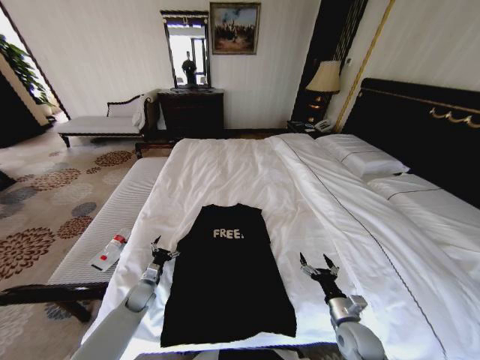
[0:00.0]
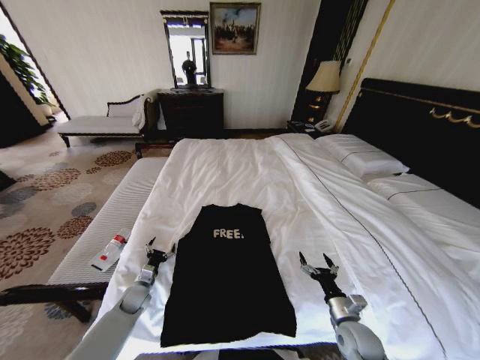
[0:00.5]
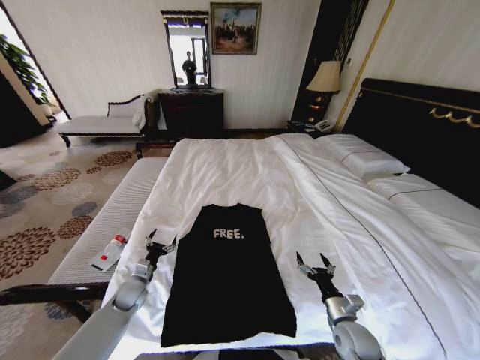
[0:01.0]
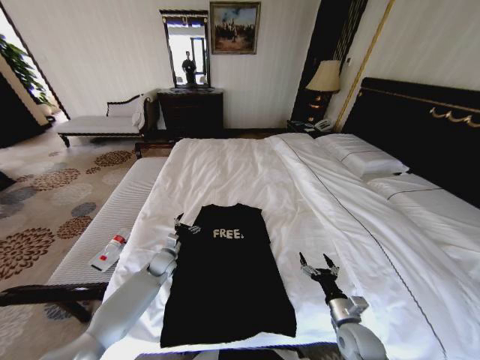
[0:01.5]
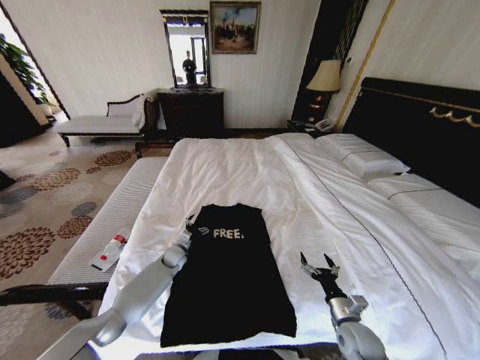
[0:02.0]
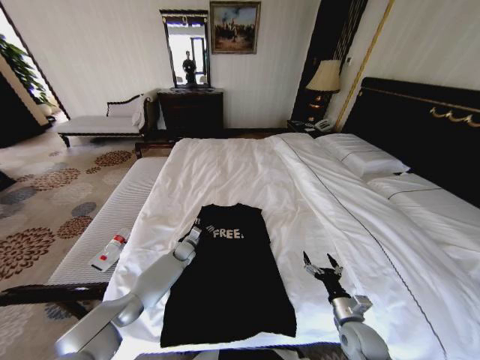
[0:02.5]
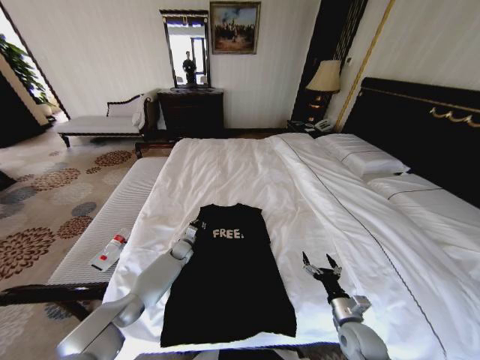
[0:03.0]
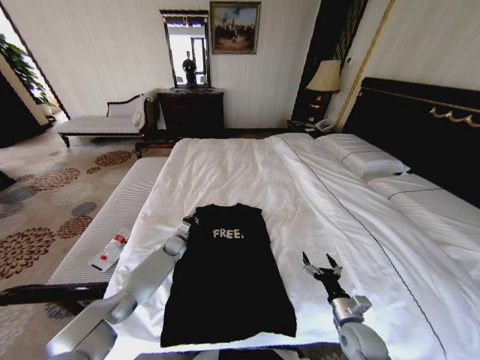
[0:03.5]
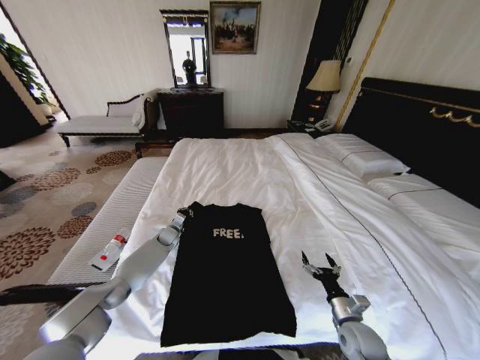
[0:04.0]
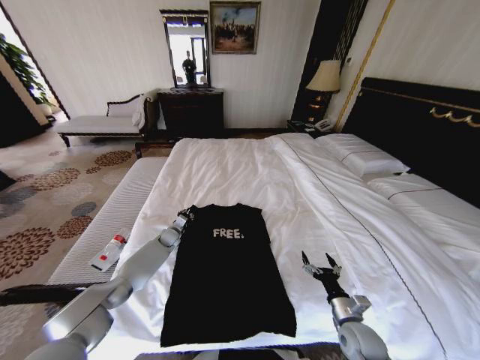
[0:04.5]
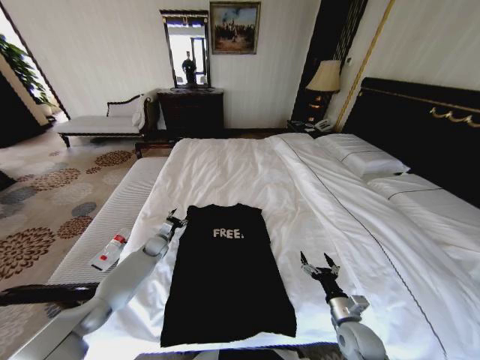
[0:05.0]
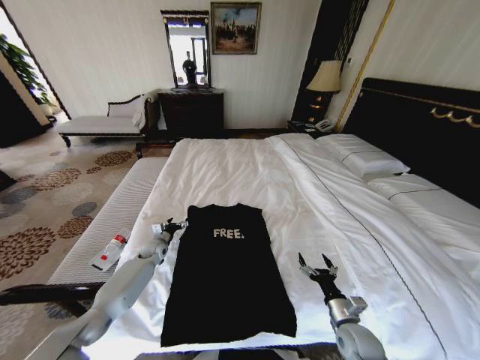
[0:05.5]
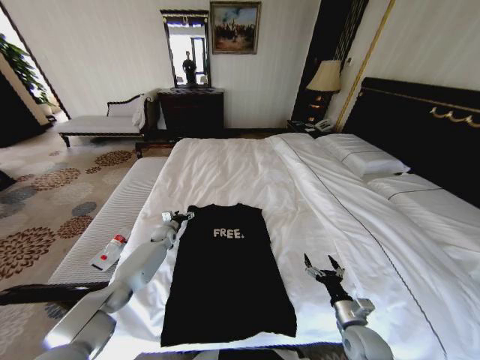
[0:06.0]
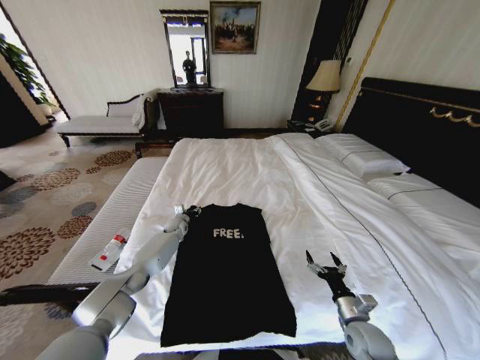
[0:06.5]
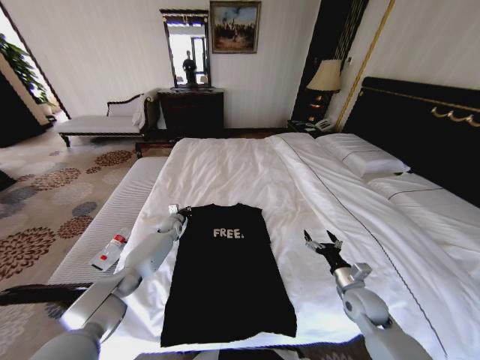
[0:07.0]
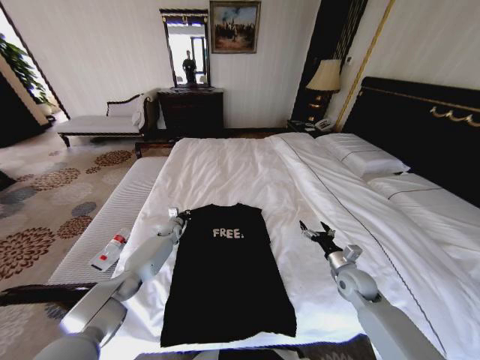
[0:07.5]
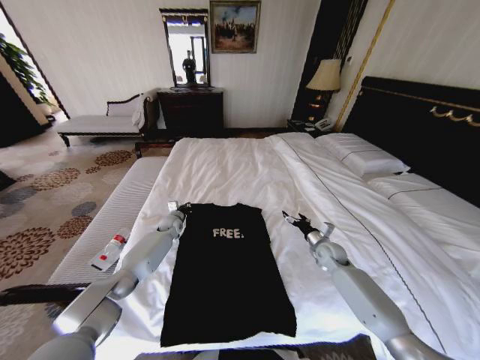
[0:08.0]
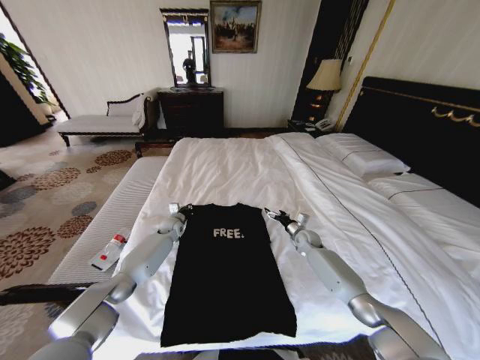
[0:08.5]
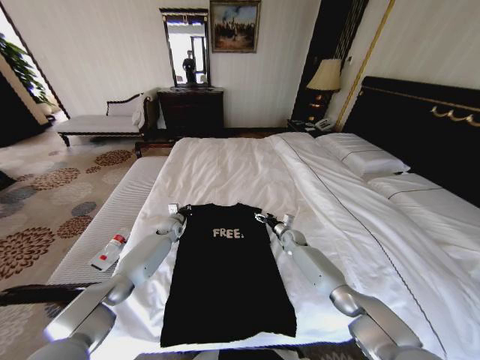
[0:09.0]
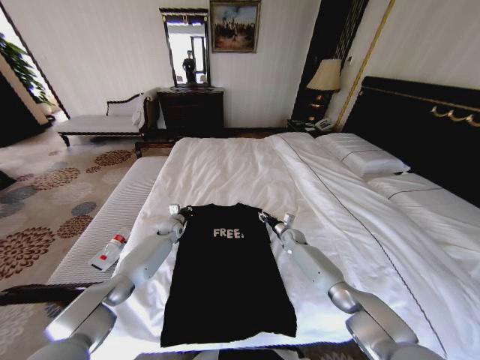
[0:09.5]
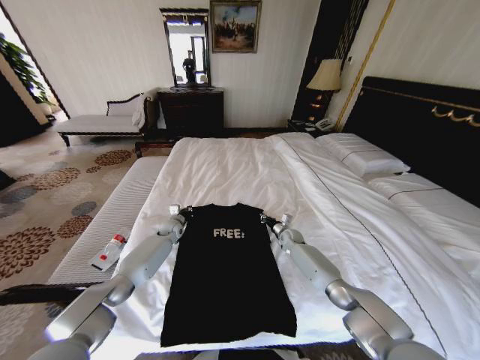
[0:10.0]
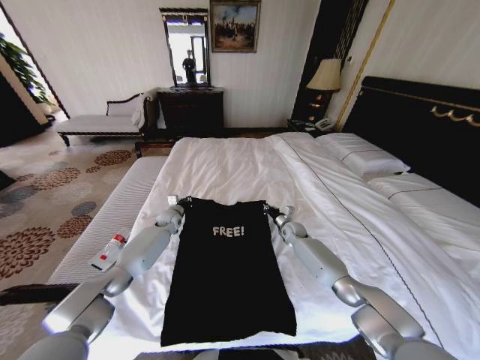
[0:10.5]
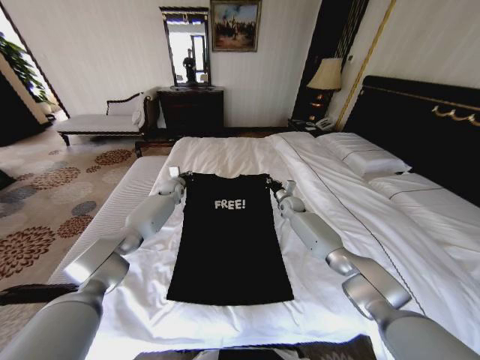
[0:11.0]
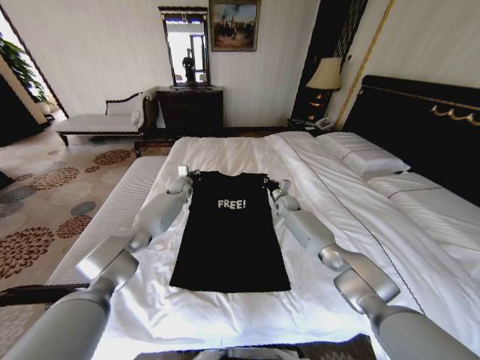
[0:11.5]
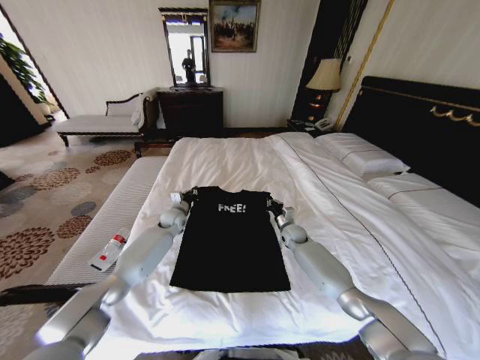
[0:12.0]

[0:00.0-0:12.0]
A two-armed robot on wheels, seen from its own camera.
Task of the whole recording: Fold the clothes on the bed.
0:00.0 to 0:02.0: The left gripper goes some 15 cm forward and to the right.
0:02.0 to 0:04.0: The left gripper moves forward, approximately 10 cm, and closes.
0:04.0 to 0:06.0: The left gripper opens its fingers.
0:06.0 to 0:08.0: The right gripper travels forward by some 25 cm. The left gripper moves about 5 cm, and closes.
0:08.0 to 0:10.0: The right gripper is displaced forward, to the left and downward by about 15 cm, and closes its fingers.
0:10.0 to 0:12.0: The grippers both shift upward by roughly 5 cm.

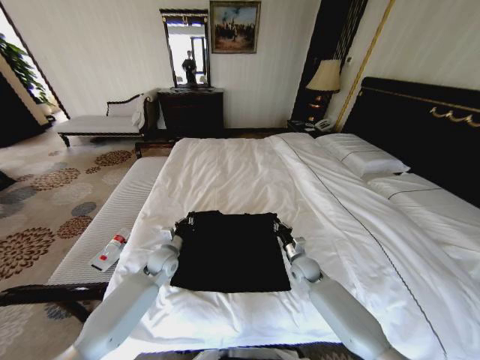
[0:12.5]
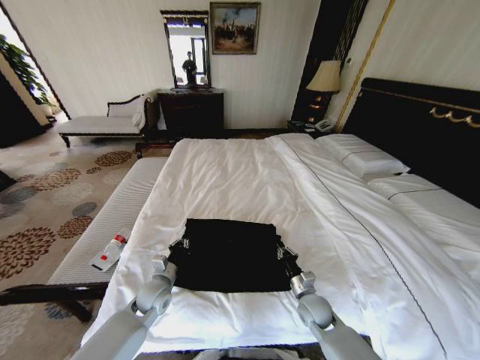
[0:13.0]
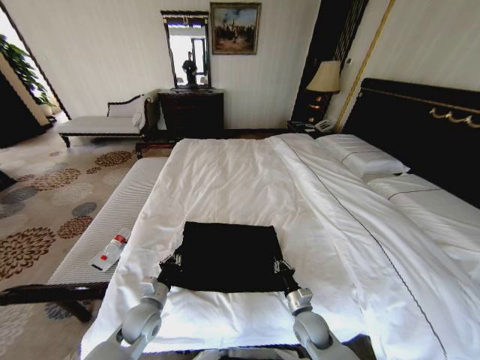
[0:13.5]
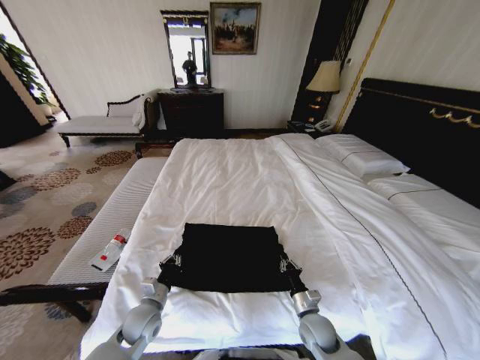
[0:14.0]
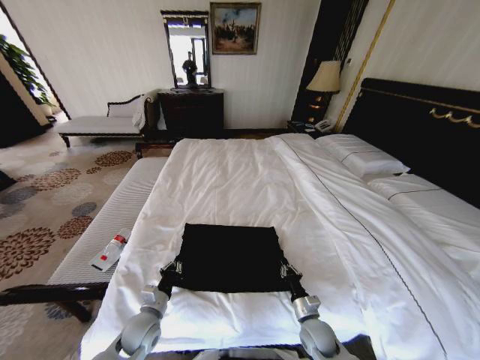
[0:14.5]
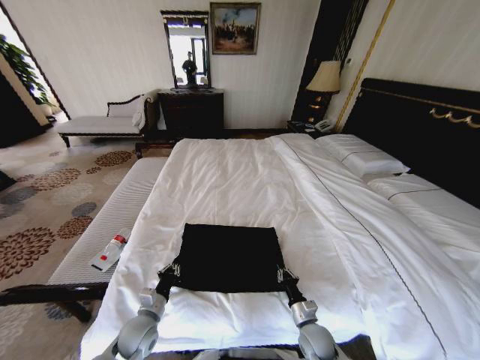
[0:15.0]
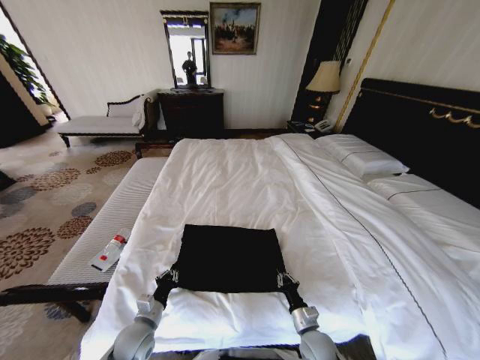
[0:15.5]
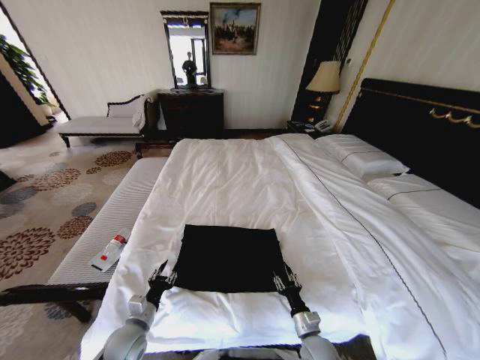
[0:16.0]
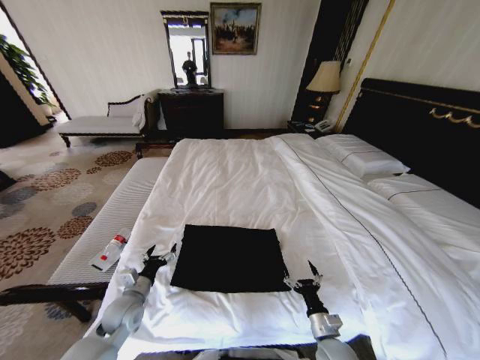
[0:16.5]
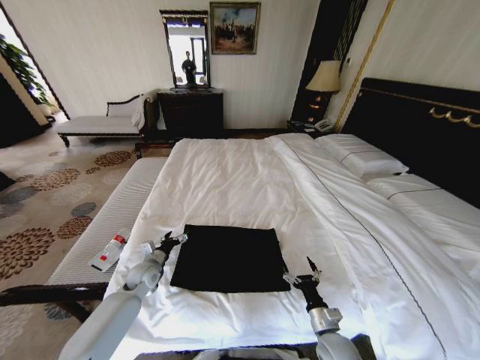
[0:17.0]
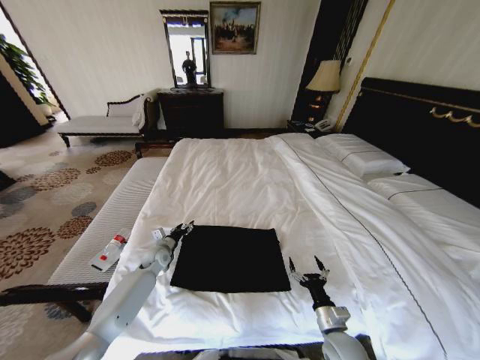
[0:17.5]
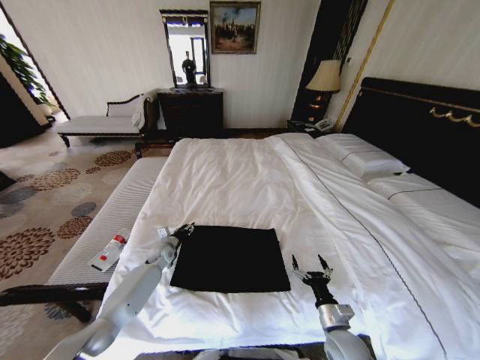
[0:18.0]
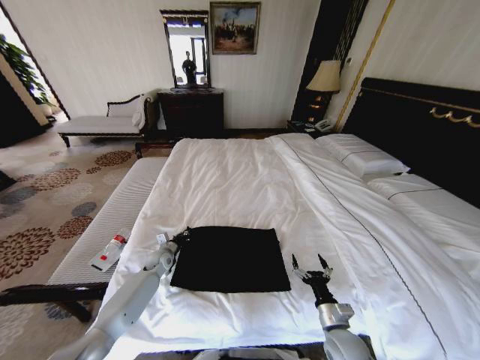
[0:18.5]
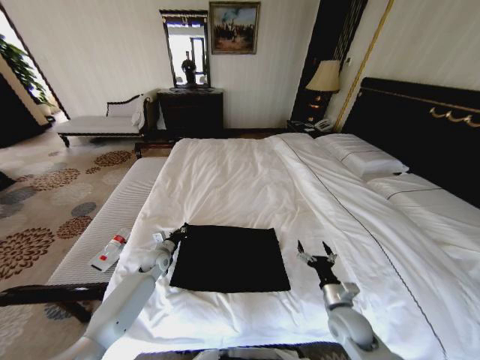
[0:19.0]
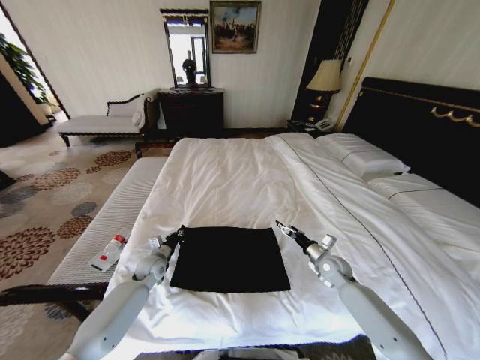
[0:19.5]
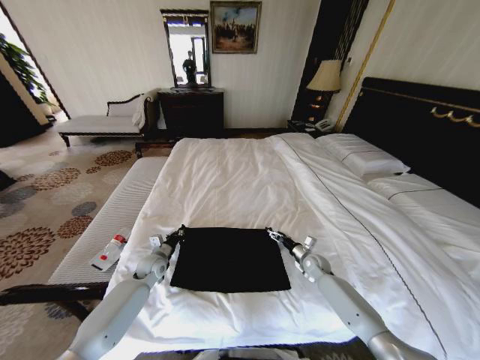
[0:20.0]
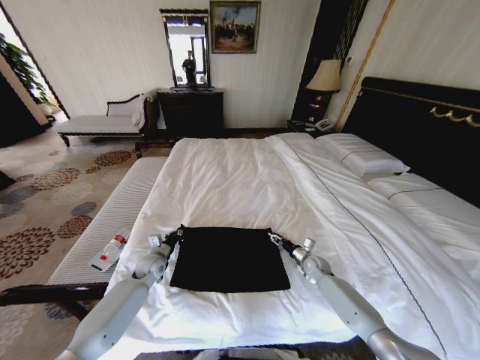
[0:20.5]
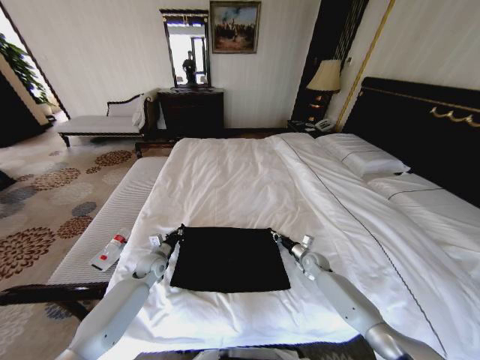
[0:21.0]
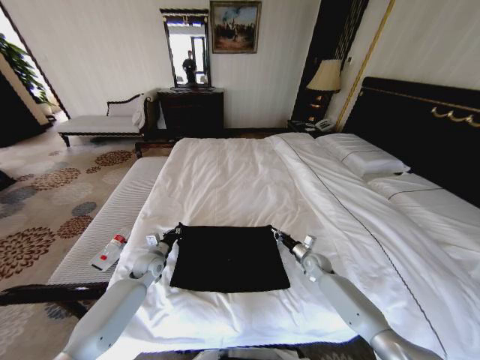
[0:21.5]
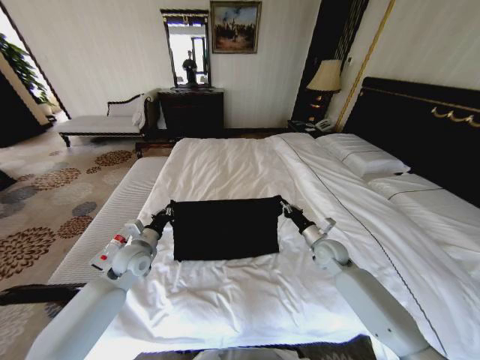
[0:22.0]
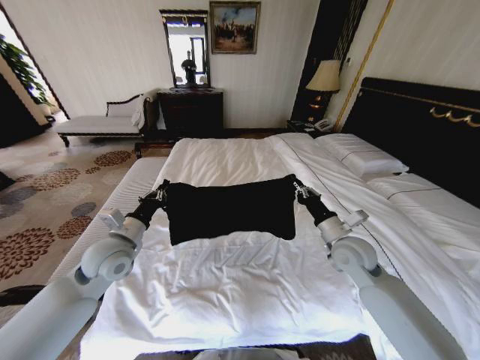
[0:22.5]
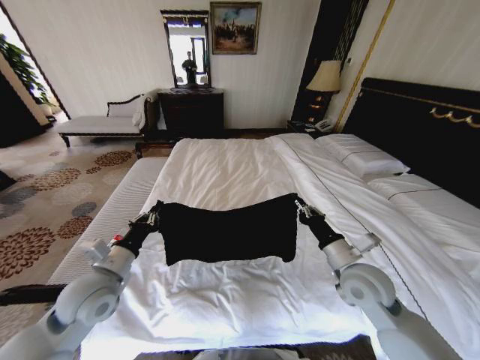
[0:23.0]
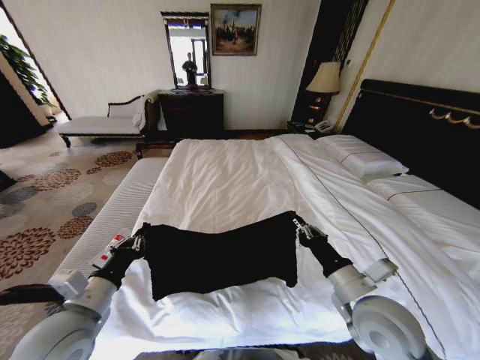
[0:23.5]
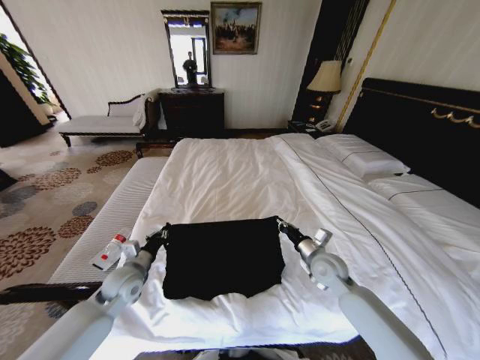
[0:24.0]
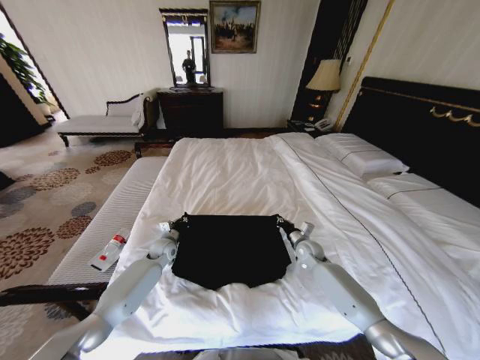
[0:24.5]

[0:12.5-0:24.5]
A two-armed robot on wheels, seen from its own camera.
Task of the whole recording: Fold the clothes on the bed.
0:12.5 to 0:14.5: The grippers both shift backward by roughly 20 cm.
0:14.5 to 0:16.5: The left gripper shifts roughly 5 cm to the left, and opens up. The right gripper travels backward by some 5 cm, and opens its fingers.
0:16.5 to 0:18.5: The left gripper goes some 20 cm forward, and closes its fingers.
0:18.5 to 0:20.5: The left gripper shifts by approximately 5 cm. Meanwhile the right gripper moves forward, some 25 cm.
0:20.5 to 0:22.5: Both grippers move upward, approximately 25 cm. The right gripper closes its fingers.
0:22.5 to 0:24.5: The grippers both shift downward and forward by roughly 20 cm.

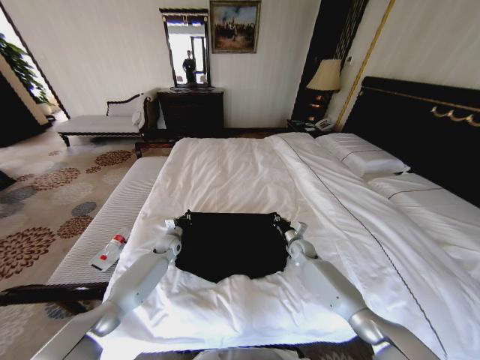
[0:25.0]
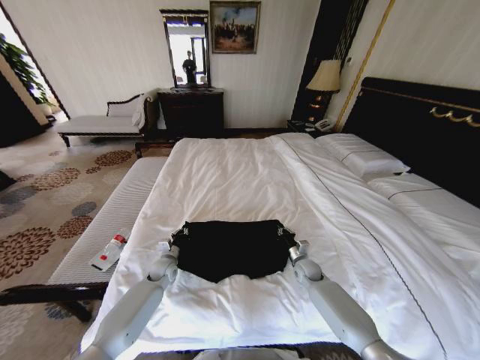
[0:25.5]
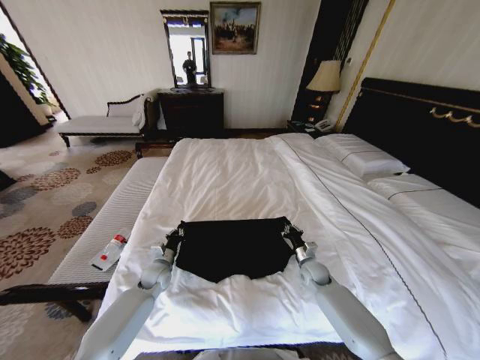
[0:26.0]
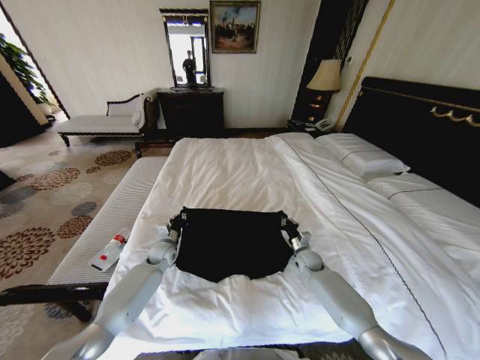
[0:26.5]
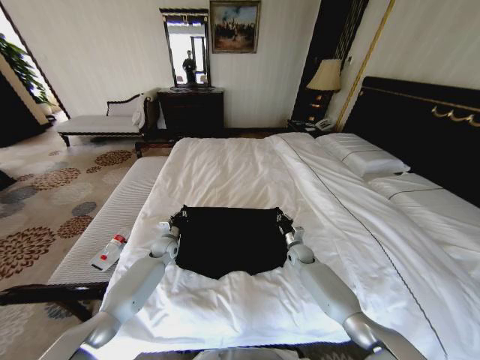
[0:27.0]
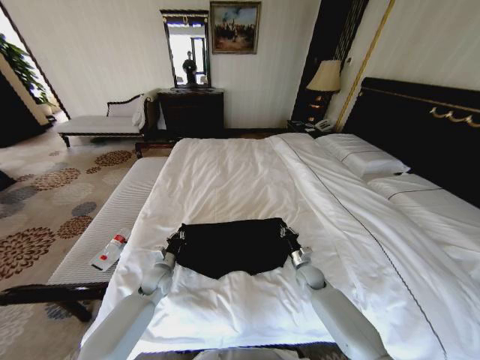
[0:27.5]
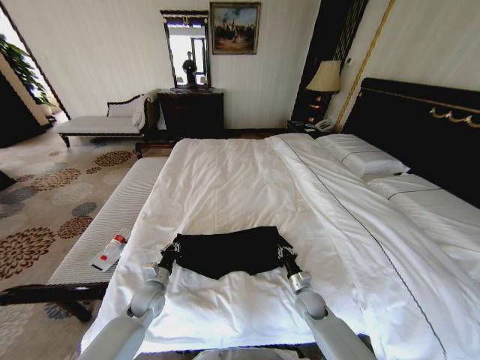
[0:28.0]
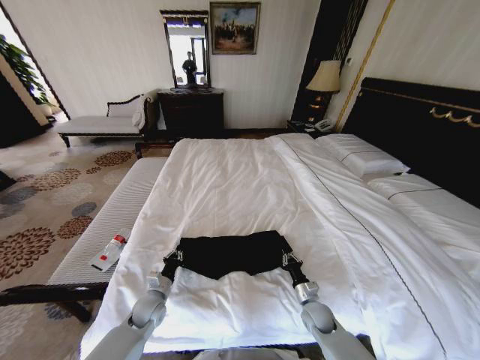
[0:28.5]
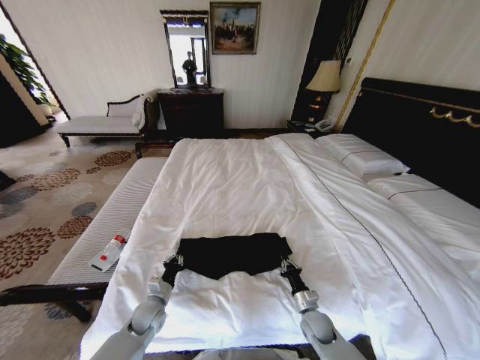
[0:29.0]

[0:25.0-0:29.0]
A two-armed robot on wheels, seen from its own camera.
Task of the whole recording: Fold the clothes on the bed.
0:25.0 to 0:27.0: The left gripper travels backward and back again, some 10 cm each way. The right gripper reaches some 10 cm backward, then returns.
0:27.0 to 0:29.0: Both grippers move backward, roughly 20 cm.
